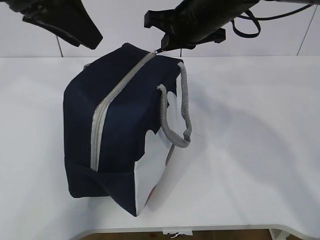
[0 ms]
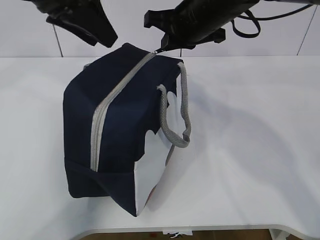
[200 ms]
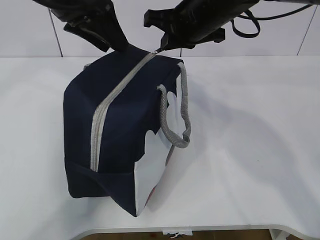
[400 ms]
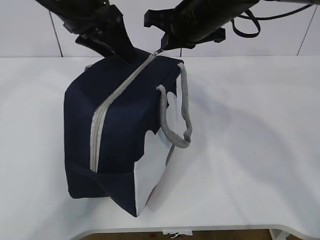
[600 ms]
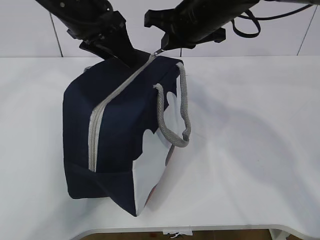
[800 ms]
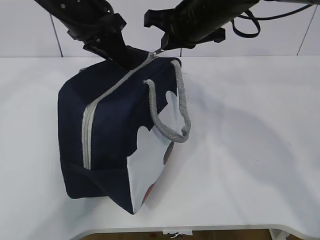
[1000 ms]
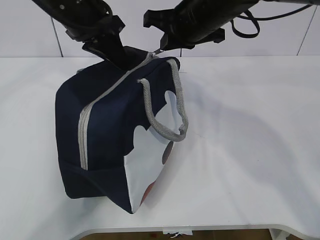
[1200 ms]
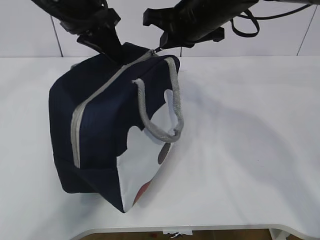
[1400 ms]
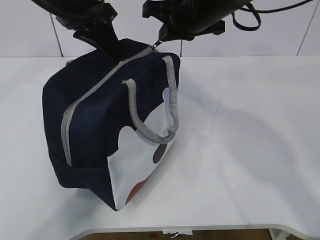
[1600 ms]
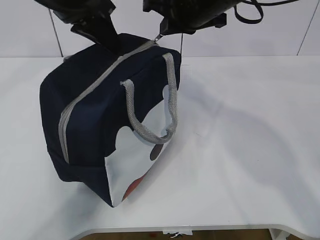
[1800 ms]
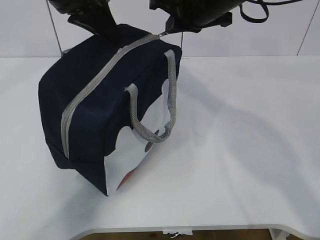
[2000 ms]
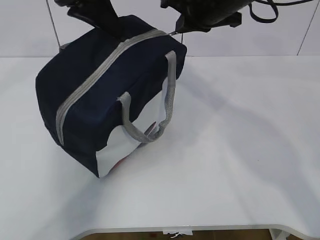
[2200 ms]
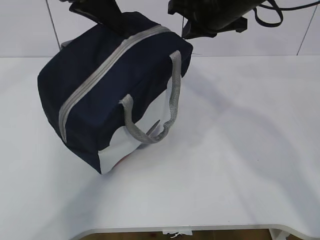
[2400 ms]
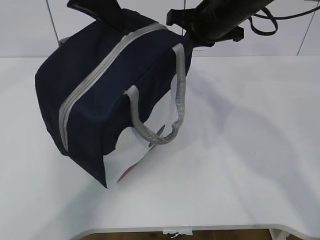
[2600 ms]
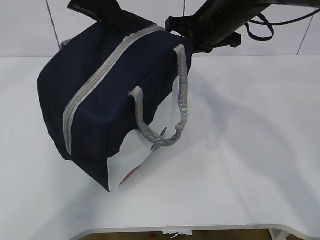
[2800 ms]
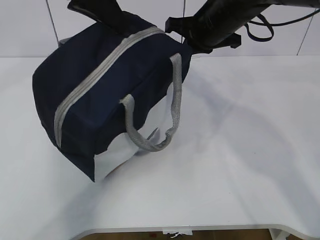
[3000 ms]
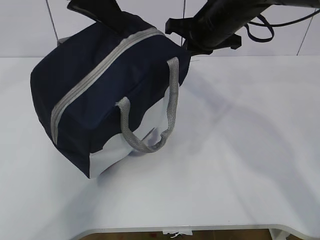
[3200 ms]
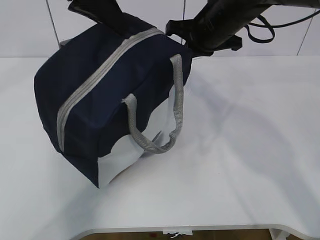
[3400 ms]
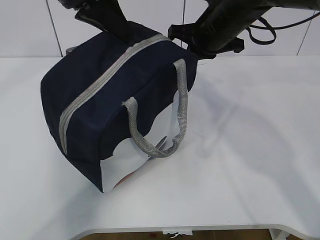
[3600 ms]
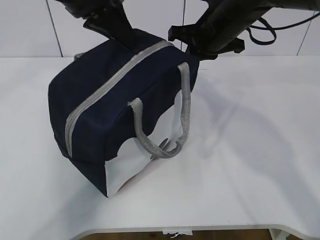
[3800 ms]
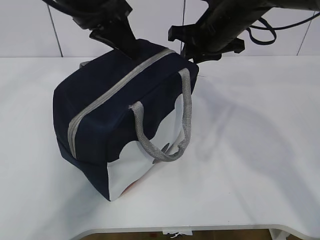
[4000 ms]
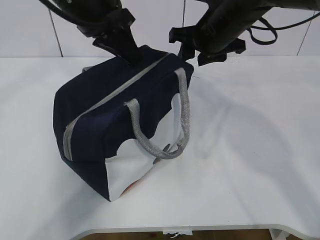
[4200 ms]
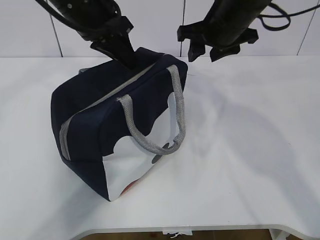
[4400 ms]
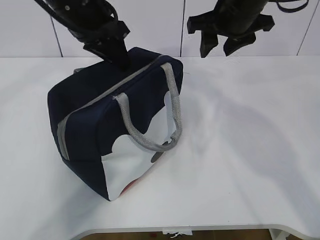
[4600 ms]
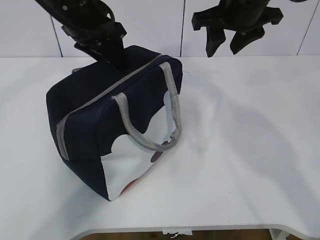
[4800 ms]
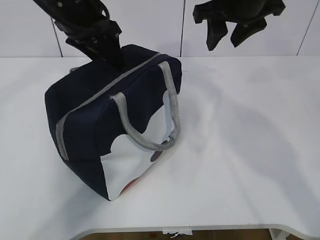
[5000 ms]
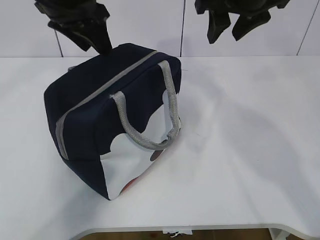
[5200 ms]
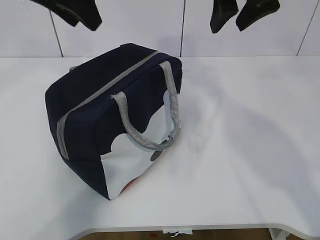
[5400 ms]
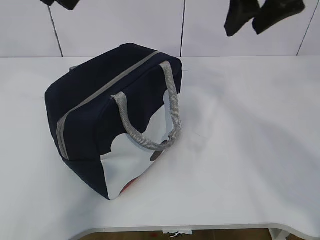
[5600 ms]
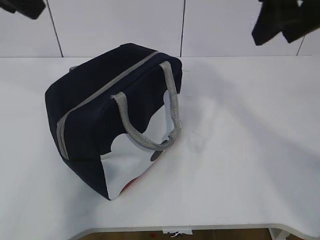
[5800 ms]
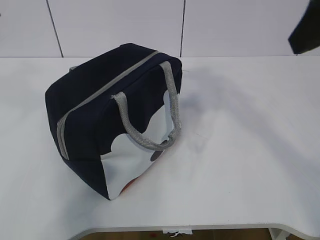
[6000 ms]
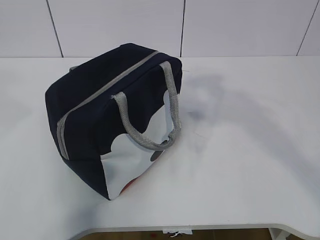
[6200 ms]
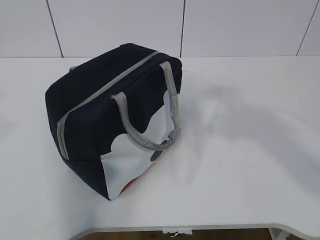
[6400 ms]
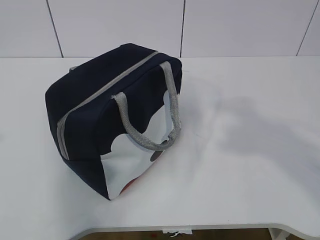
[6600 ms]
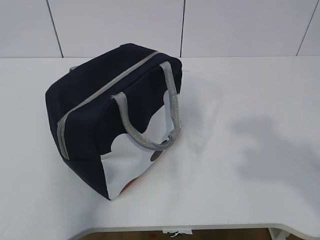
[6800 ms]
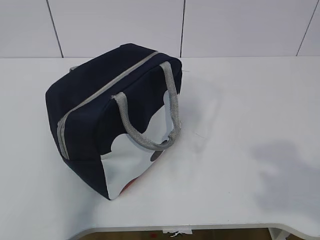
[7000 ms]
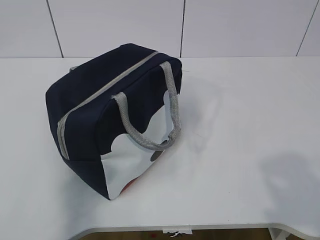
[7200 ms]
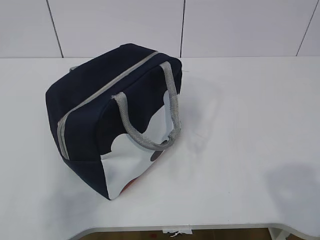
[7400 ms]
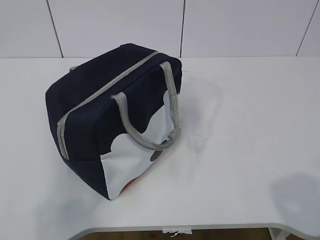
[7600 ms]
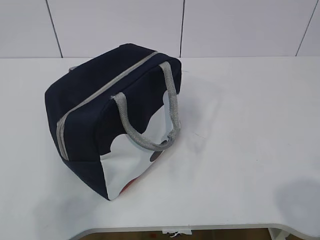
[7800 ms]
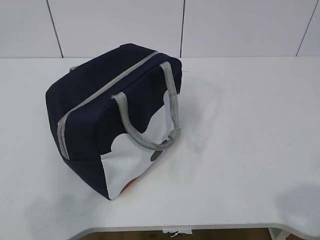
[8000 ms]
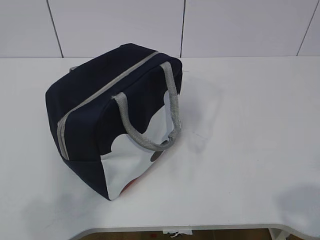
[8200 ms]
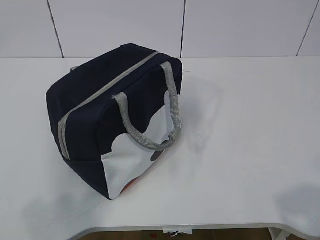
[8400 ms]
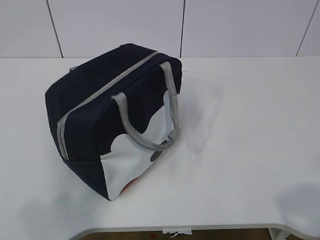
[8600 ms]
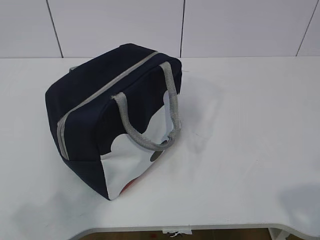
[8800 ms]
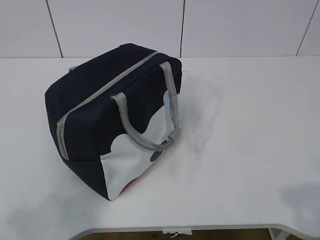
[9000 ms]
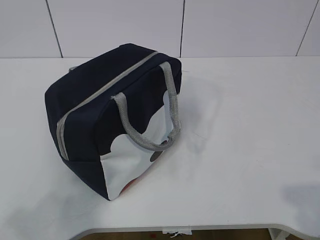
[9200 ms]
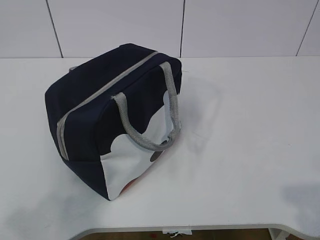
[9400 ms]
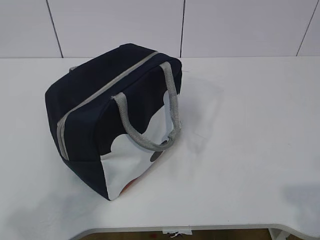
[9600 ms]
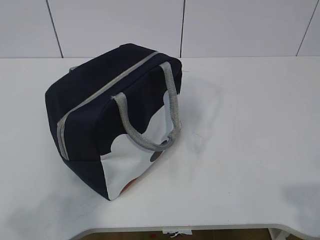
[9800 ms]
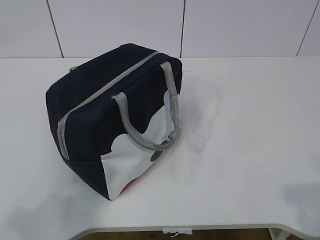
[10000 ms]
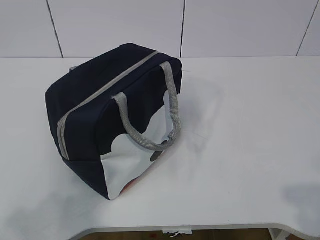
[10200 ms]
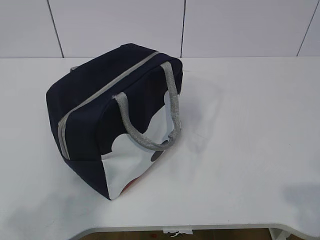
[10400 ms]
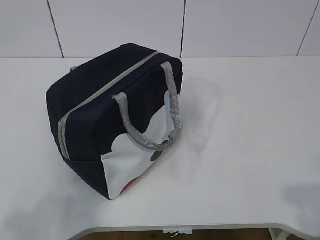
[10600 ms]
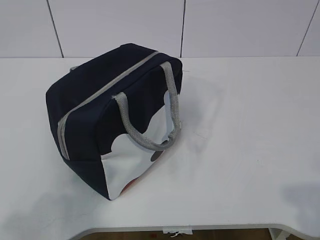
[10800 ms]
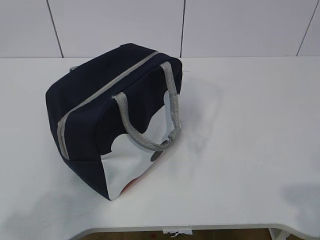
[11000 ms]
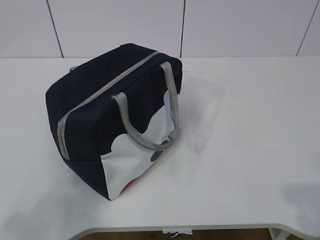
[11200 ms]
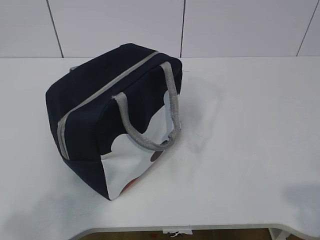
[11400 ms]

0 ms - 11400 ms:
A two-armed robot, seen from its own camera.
Step, 0 ms - 5400 ms: zip up the zipper to close the bag.
0 ms - 1400 ms: The left gripper shifts approximately 10 cm forward and downward, and closes up.
1400 ms - 2800 ms: The left gripper shifts roughly 5 cm upward.
2800 ms - 4200 ms: The left gripper travels downward by roughly 5 cm. The right gripper opens.
4200 ms - 5600 ms: The left gripper is displaced upward, backward and to the left by some 15 cm, and opens; the right gripper shifts some 15 cm upward and backward.
5600 ms - 7200 ms: The right gripper is displaced backward by approximately 35 cm; the left gripper shifts some 35 cm backward and to the left.
7200 ms - 8600 ms: The left gripper heads downward, covering approximately 5 cm.
